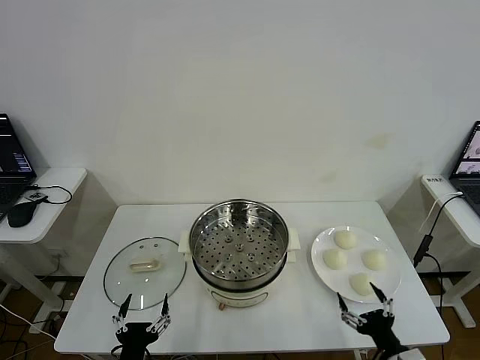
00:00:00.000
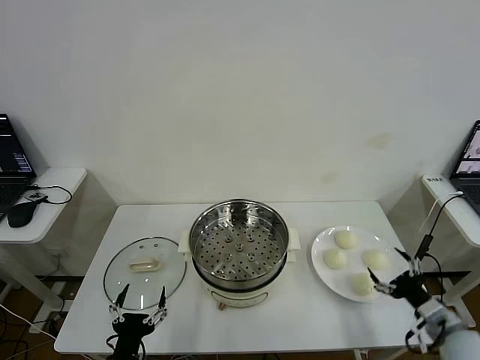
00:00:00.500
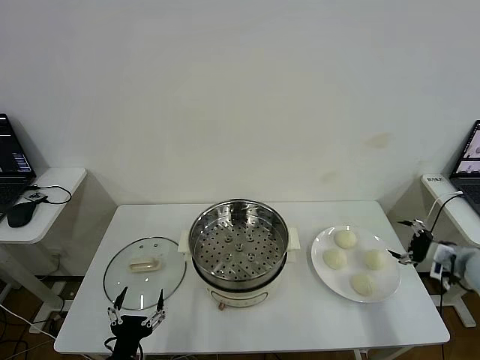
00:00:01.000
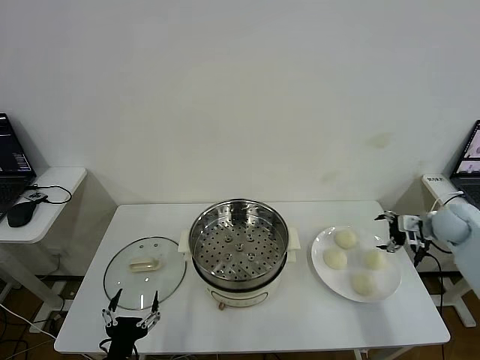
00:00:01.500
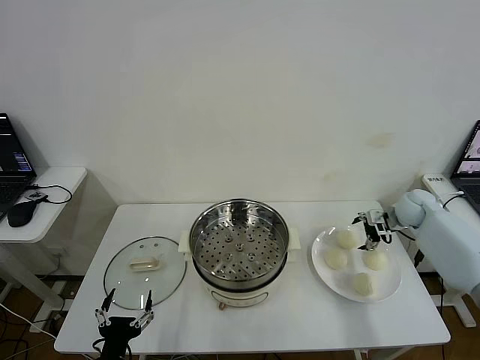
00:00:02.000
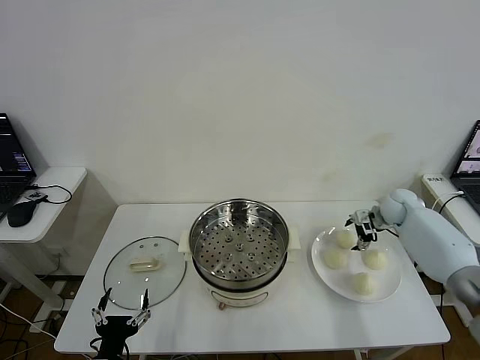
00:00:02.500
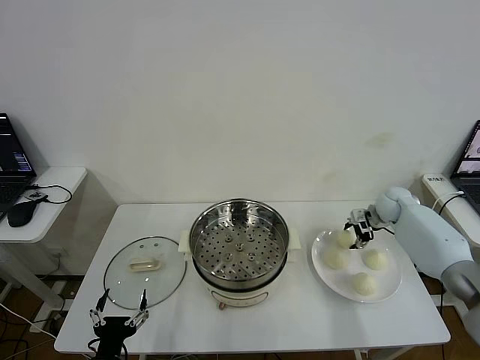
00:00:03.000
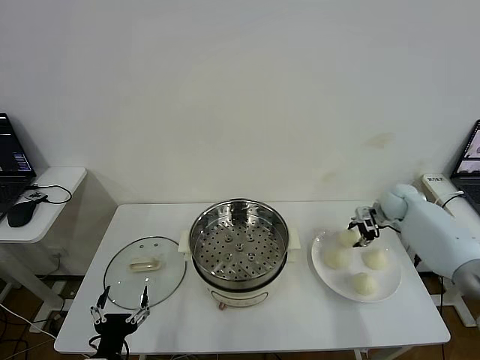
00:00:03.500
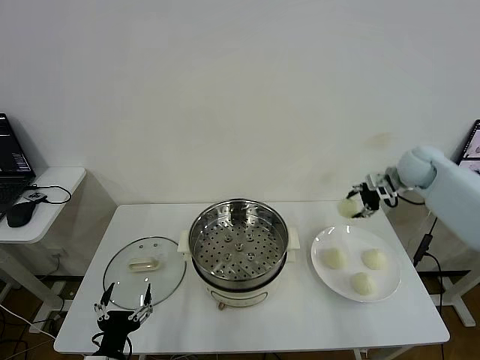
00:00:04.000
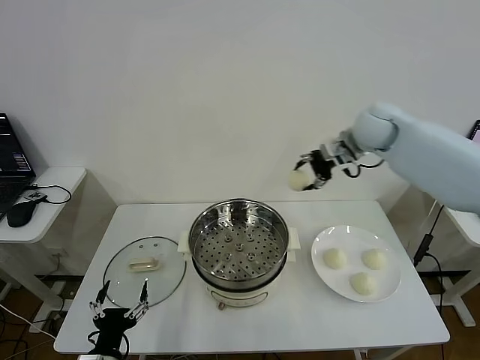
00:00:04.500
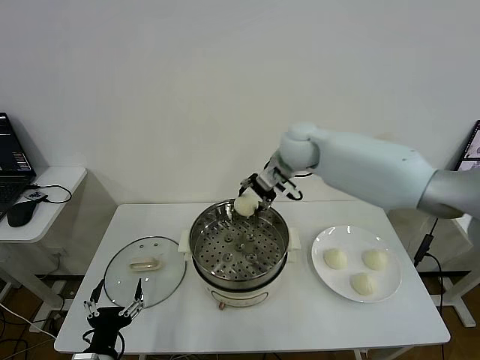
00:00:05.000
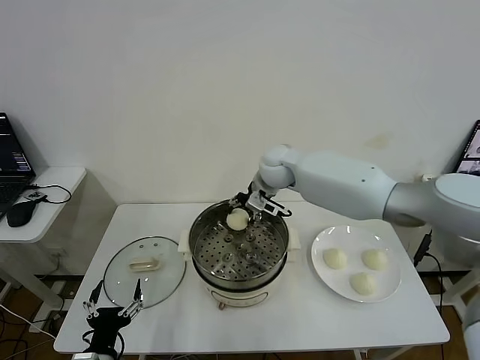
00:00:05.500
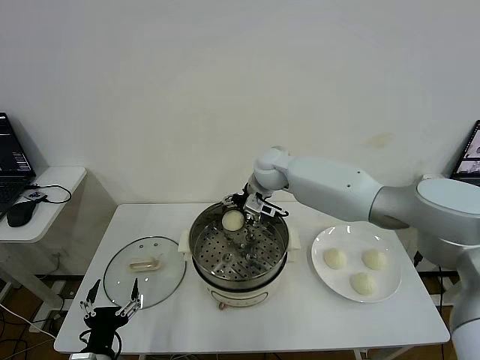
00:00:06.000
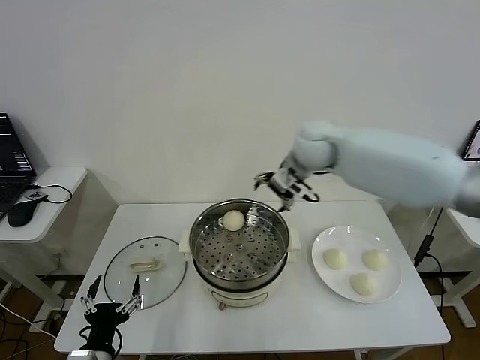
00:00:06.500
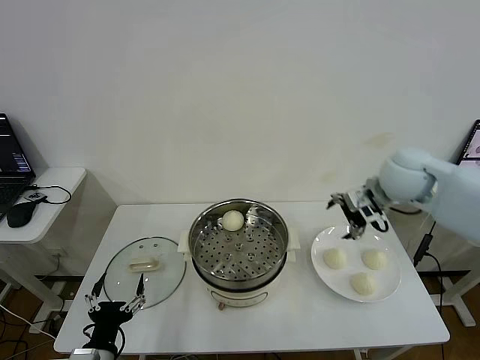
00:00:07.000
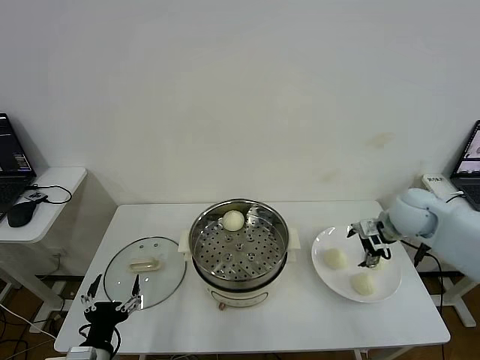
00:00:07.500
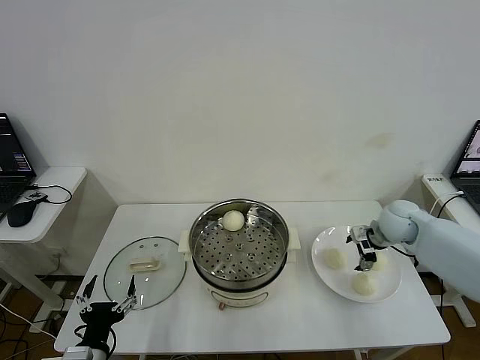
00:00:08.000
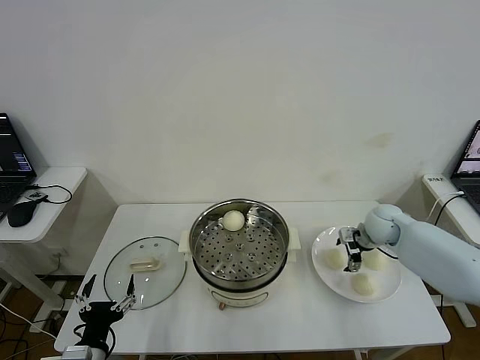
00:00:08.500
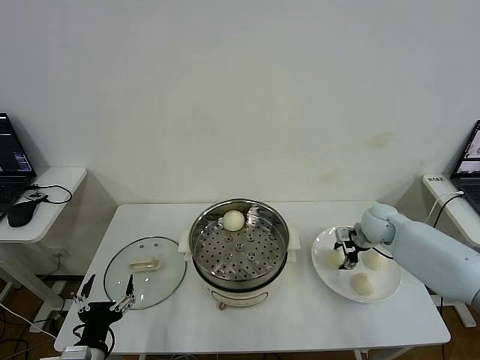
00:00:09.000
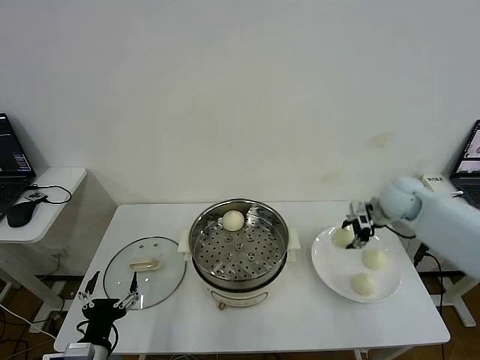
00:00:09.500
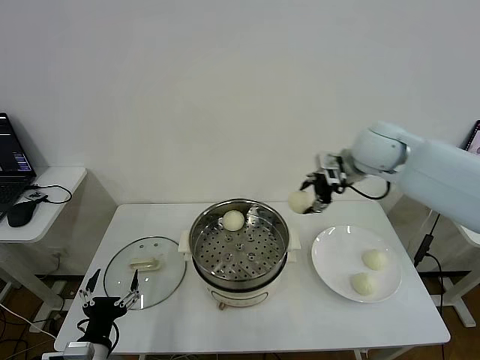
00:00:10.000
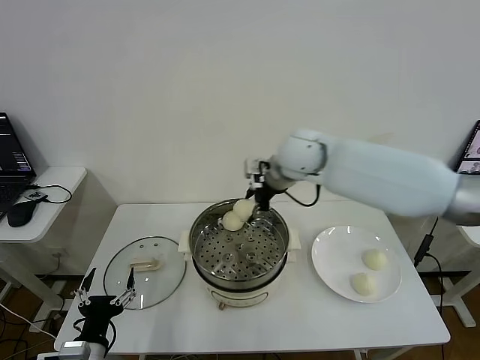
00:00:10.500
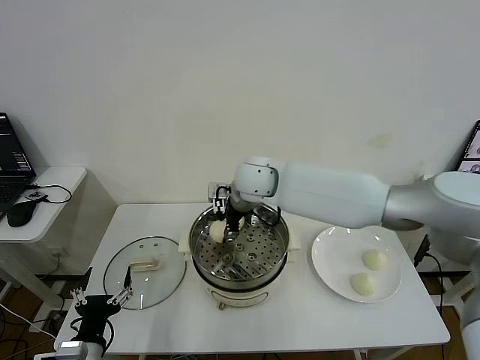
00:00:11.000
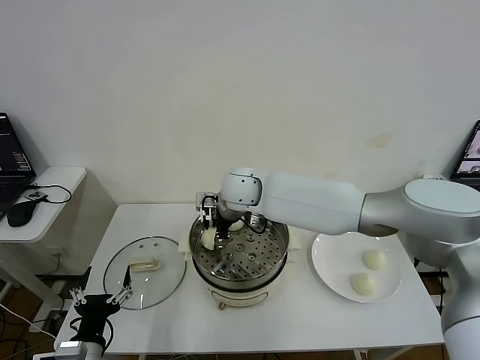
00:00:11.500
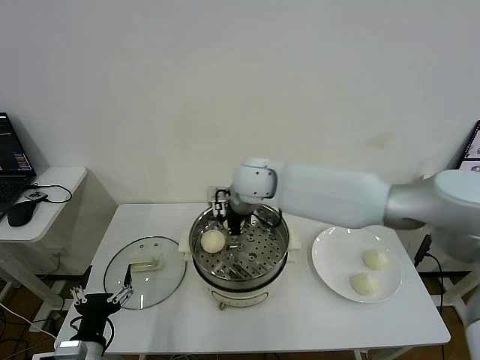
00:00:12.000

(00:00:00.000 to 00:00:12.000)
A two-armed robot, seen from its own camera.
Step, 00:00:00.000 - 00:00:02.500: Grasp the baozi in the plate with right gripper.
Step, 00:00:03.000 - 00:00:06.000: Place the baozi on the steamer with right gripper.
Step, 00:00:06.500 - 00:00:09.000: Grasp the baozi in the plate with right gripper.
Step, 00:00:09.500 - 00:00:11.500: Place the baozi on the steamer with right gripper.
00:00:02.000 - 00:00:04.000: The right gripper heads upward, covering roughly 15 cm, and closes up.
00:00:04.000 - 00:00:06.000: The right gripper heads to the left, covering approximately 35 cm, and opens.
00:00:06.000 - 00:00:08.000: The right gripper moves to the right, some 30 cm.
00:00:08.000 - 00:00:10.000: The right gripper travels upward and to the left by some 25 cm, and closes up.
00:00:10.000 - 00:00:12.000: The right gripper is displaced to the left by roughly 25 cm, and opens its fingers.

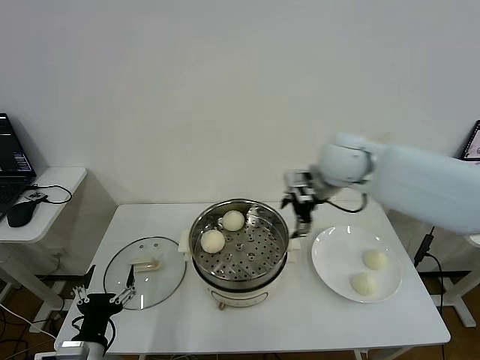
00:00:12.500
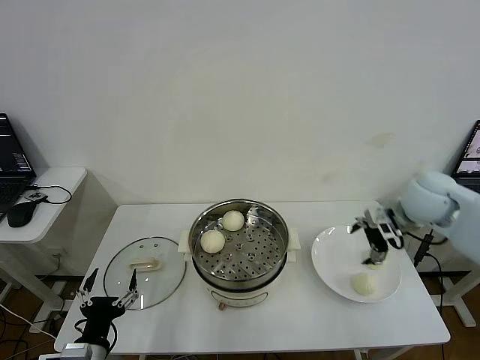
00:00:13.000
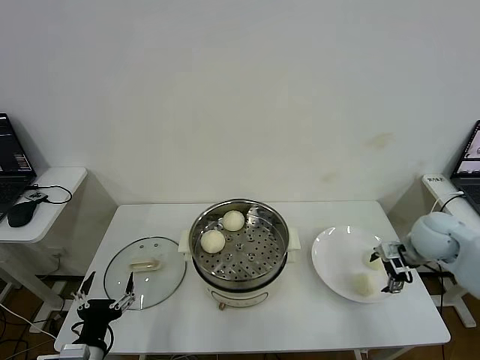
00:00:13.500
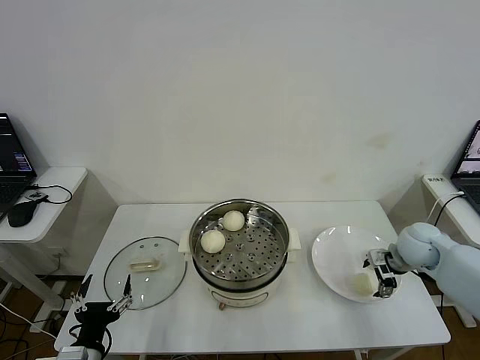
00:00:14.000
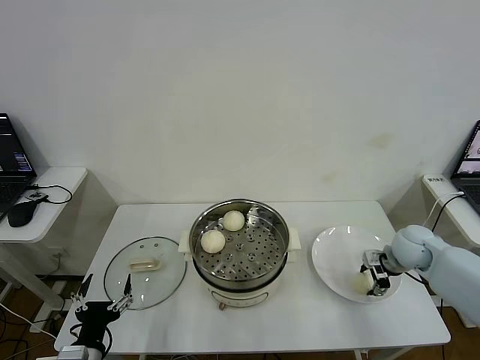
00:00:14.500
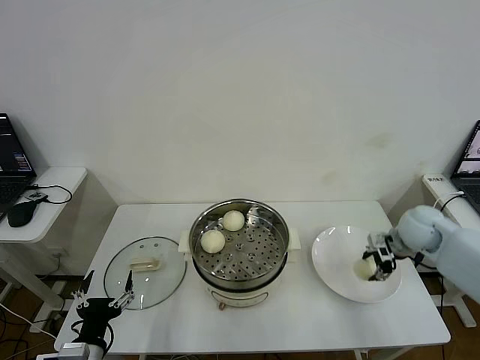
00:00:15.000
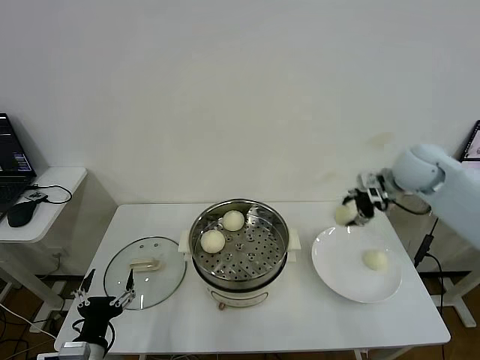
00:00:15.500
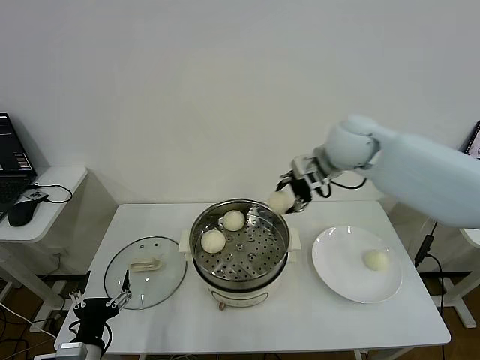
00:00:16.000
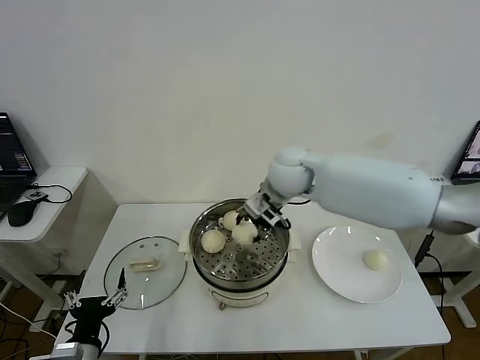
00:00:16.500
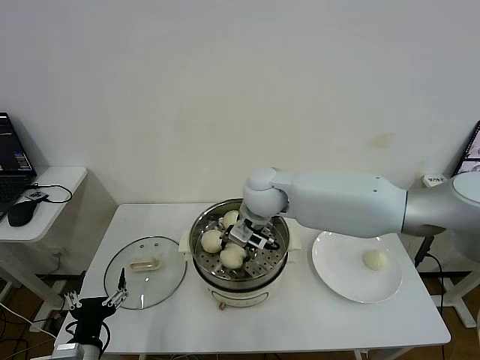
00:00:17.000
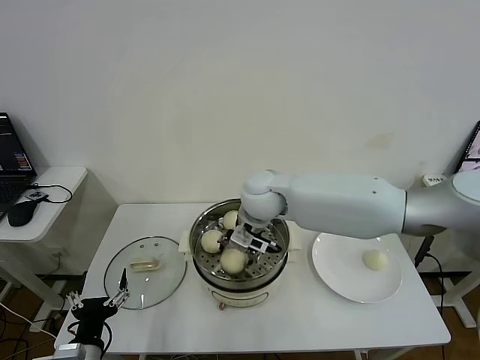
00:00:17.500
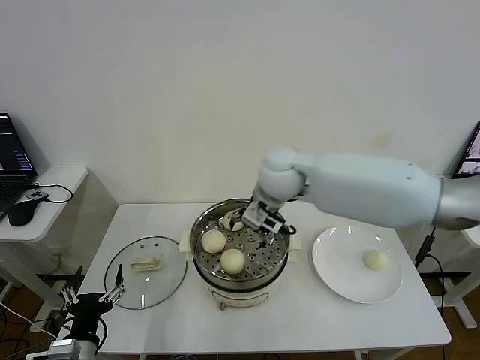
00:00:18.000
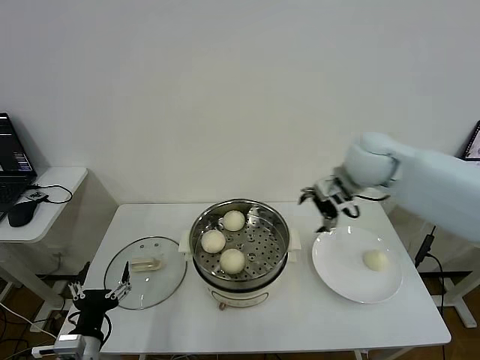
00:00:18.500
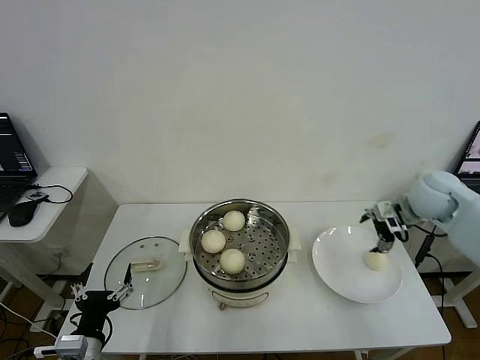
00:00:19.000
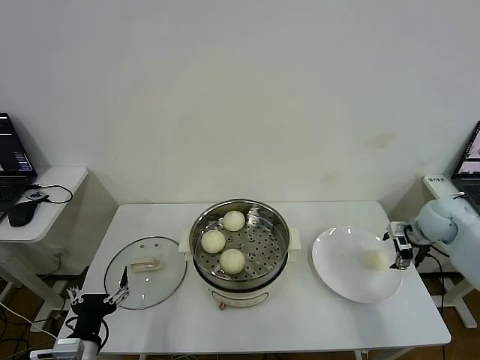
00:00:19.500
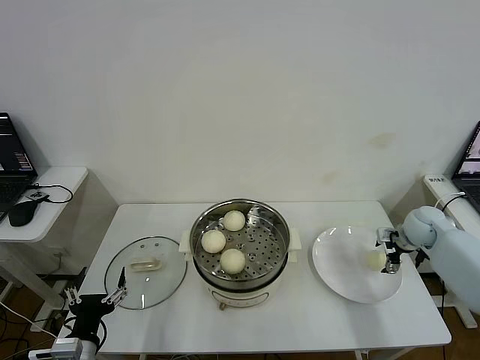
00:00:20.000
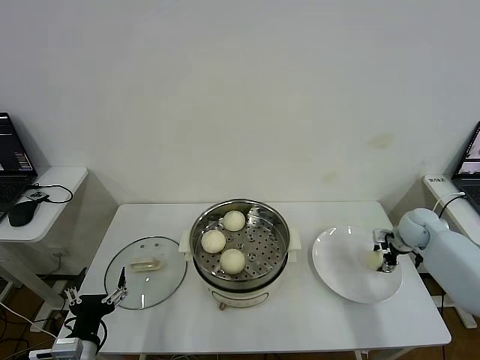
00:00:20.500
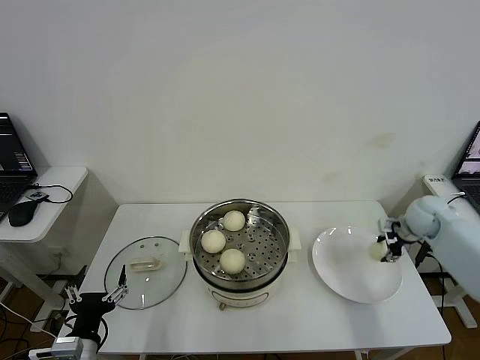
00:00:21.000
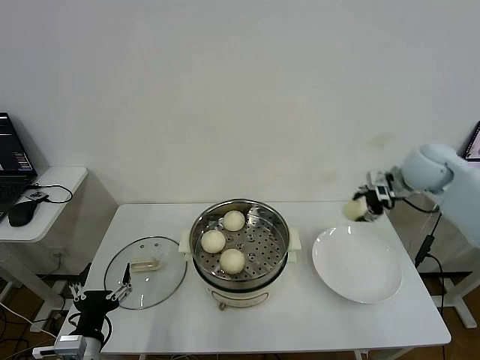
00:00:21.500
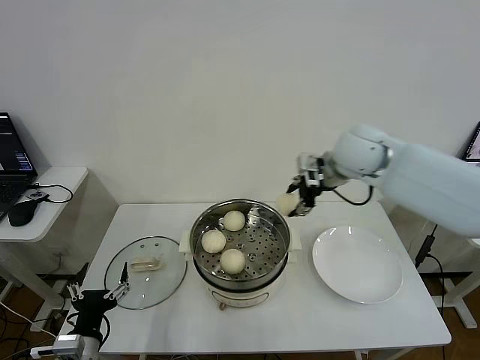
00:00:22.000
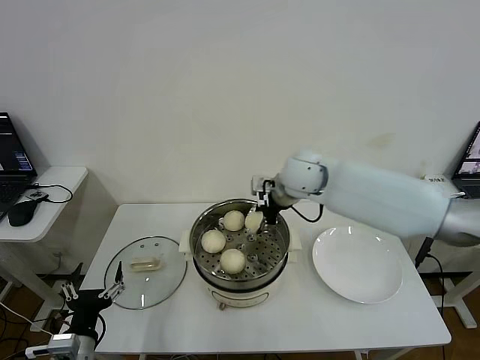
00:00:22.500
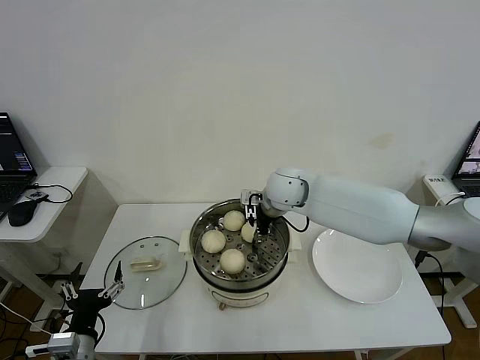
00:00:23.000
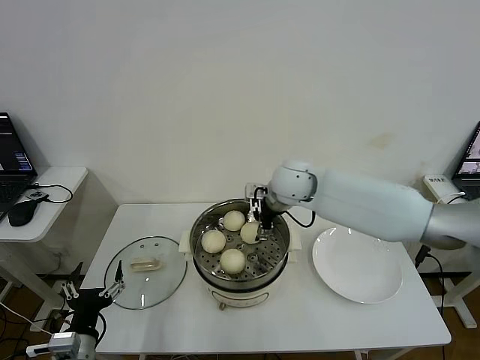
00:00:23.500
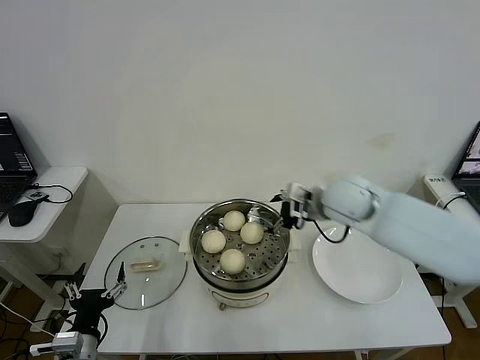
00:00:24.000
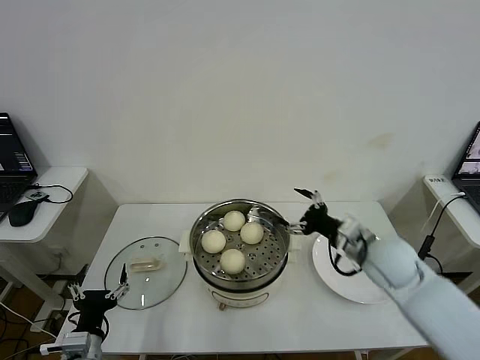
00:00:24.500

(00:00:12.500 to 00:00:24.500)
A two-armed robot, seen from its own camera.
Step, 00:00:12.500 - 00:00:14.500: Grasp the baozi in the plate with right gripper.
Step, 00:00:15.000 - 00:00:17.500: Place the baozi on the steamer with right gripper.
Step, 00:00:18.000 - 00:00:20.500: Grasp the baozi in the plate with right gripper.
Step, 00:00:21.000 - 00:00:23.000: Place the baozi on the steamer with right gripper.
00:00:12.500 - 00:00:14.500: The right gripper shifts some 30 cm downward and to the right, and closes.
00:00:14.500 - 00:00:16.500: The right gripper heads to the left and upward, covering some 35 cm.
00:00:16.500 - 00:00:18.500: The right gripper shifts approximately 15 cm to the right, and opens up.
00:00:18.500 - 00:00:20.500: The right gripper heads downward and to the right, covering some 30 cm, and closes its fingers.
00:00:20.500 - 00:00:22.500: The right gripper heads to the left and upward, covering approximately 35 cm.
00:00:22.500 - 00:00:24.500: The right gripper moves to the right, backward and downward, some 25 cm, and opens.

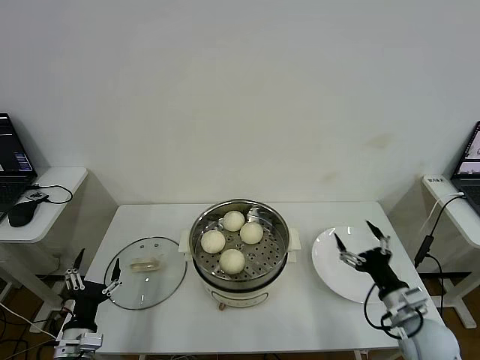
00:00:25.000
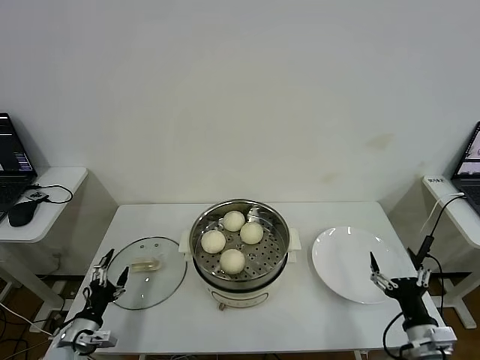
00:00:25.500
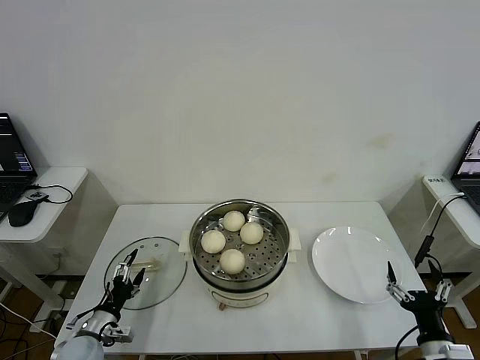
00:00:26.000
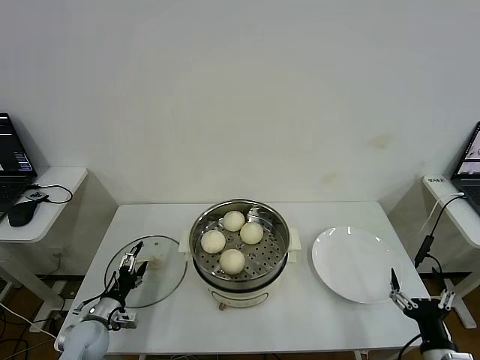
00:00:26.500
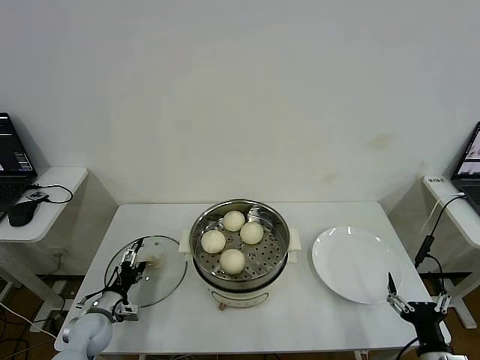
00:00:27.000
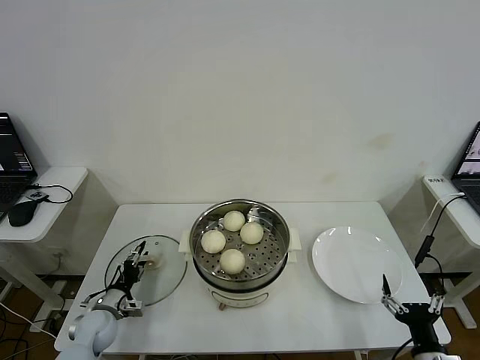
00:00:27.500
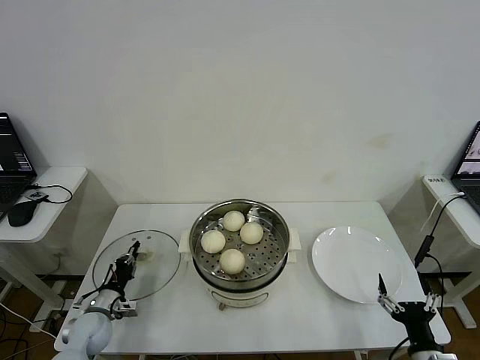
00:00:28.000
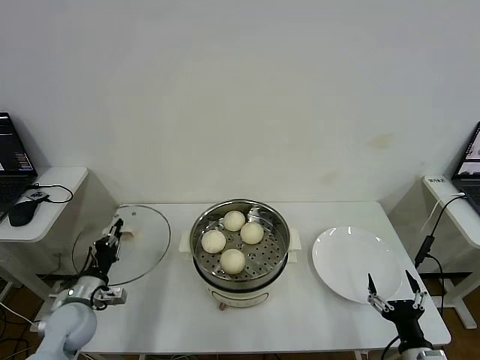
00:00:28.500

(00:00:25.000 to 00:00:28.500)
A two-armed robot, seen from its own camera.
Step, 00:00:25.000 - 00:00:27.500: Grasp the pot lid with left gripper.
00:00:25.000 - 00:00:27.000: The left gripper is displaced forward and downward by some 15 cm, while the right gripper is displaced backward by approximately 15 cm.
00:00:27.000 - 00:00:28.500: The left gripper goes some 10 cm upward, and closes up.
